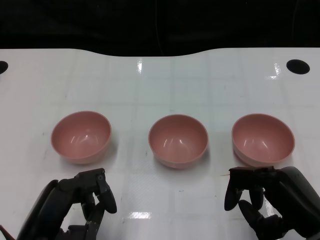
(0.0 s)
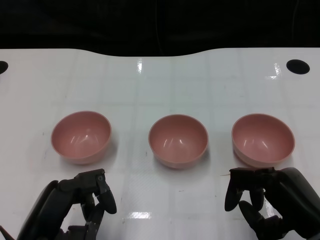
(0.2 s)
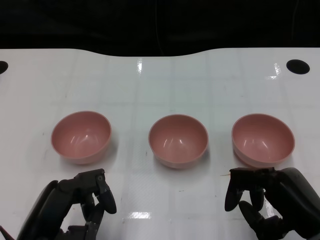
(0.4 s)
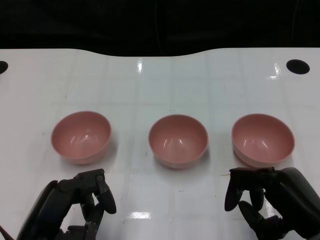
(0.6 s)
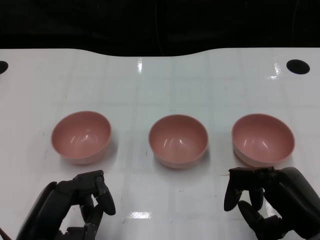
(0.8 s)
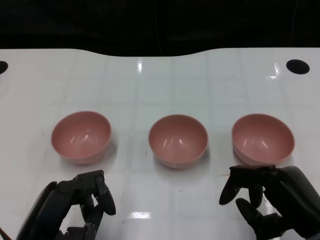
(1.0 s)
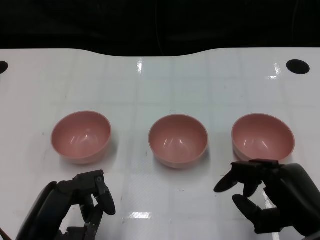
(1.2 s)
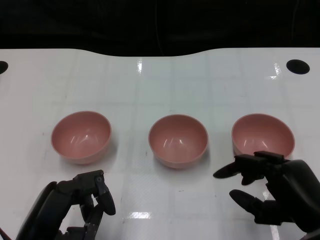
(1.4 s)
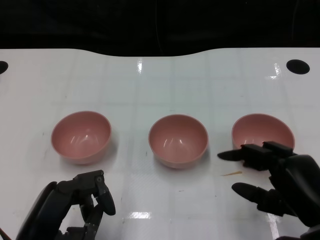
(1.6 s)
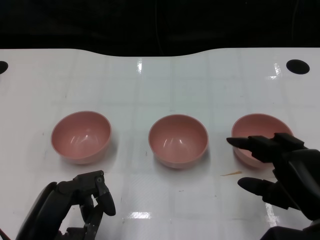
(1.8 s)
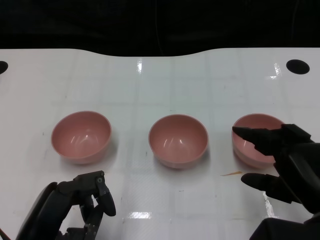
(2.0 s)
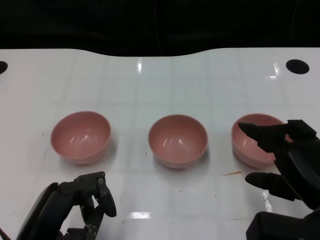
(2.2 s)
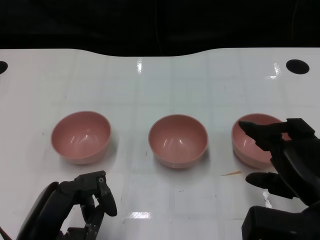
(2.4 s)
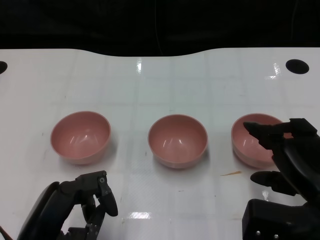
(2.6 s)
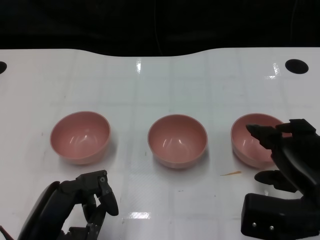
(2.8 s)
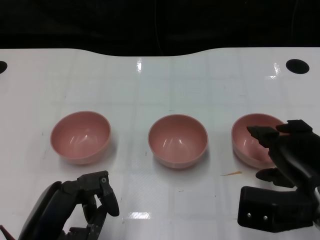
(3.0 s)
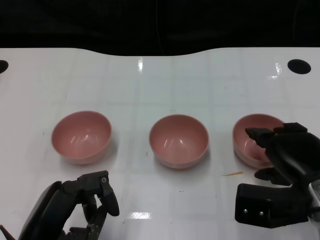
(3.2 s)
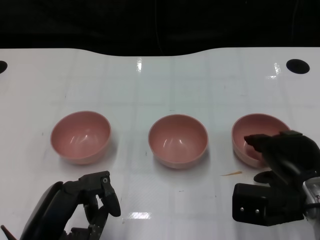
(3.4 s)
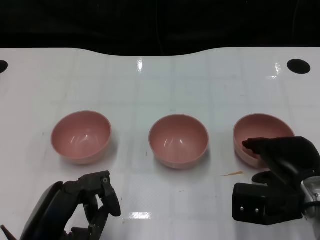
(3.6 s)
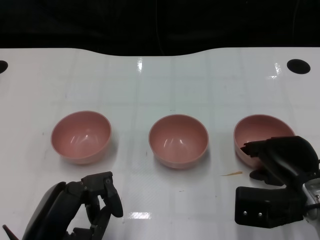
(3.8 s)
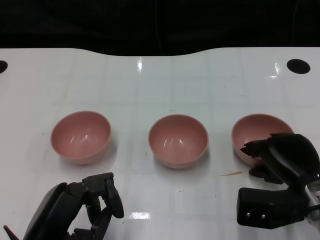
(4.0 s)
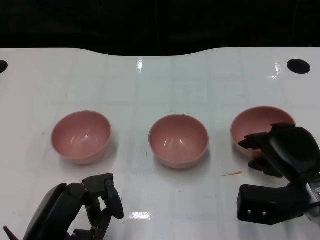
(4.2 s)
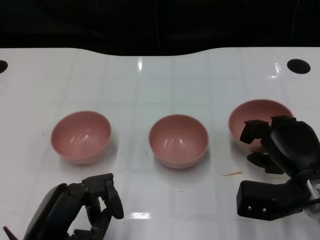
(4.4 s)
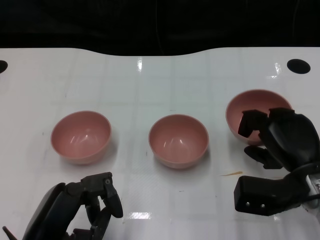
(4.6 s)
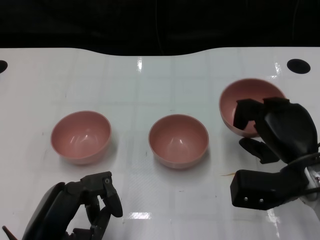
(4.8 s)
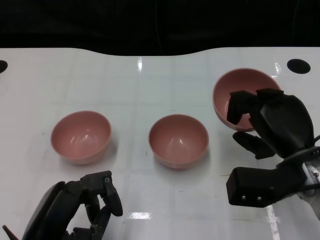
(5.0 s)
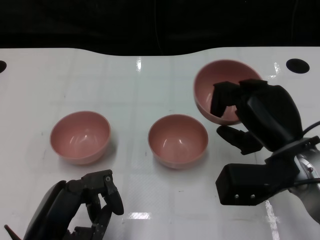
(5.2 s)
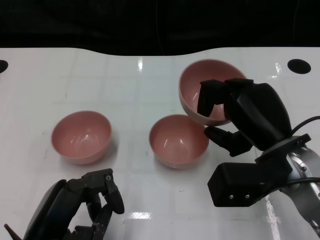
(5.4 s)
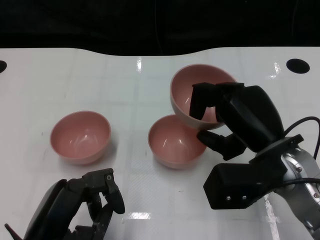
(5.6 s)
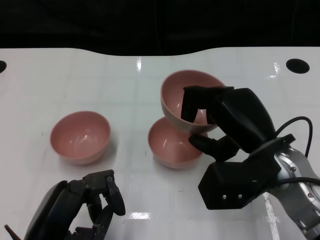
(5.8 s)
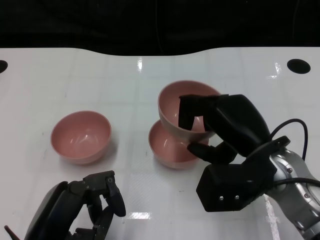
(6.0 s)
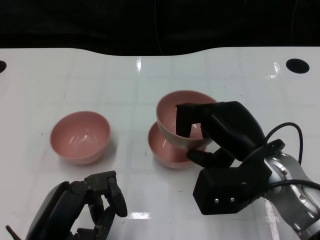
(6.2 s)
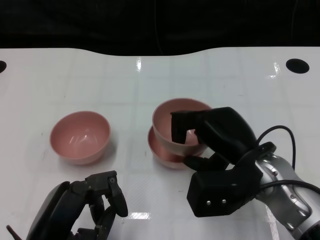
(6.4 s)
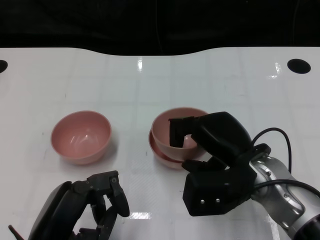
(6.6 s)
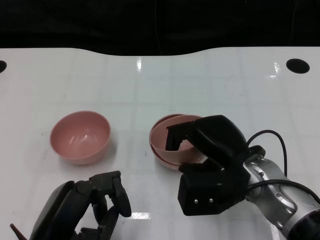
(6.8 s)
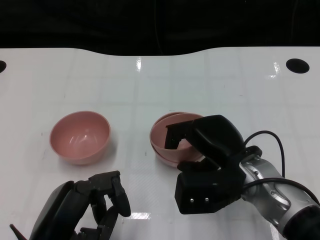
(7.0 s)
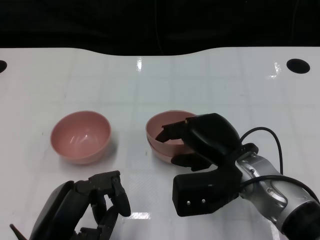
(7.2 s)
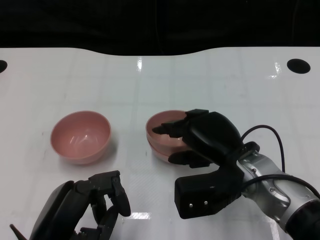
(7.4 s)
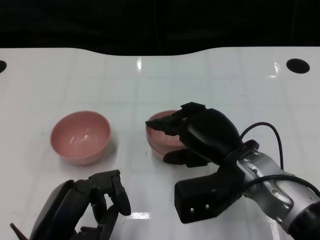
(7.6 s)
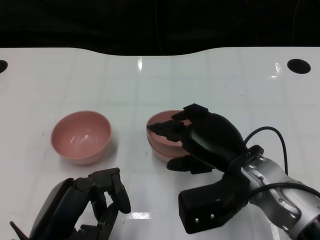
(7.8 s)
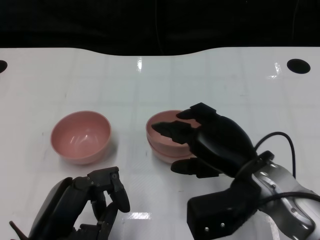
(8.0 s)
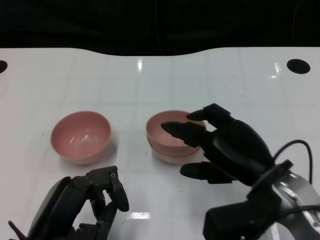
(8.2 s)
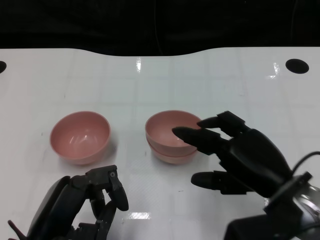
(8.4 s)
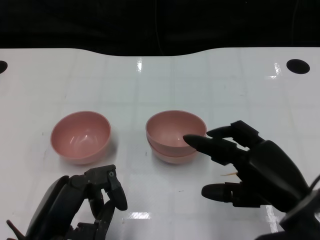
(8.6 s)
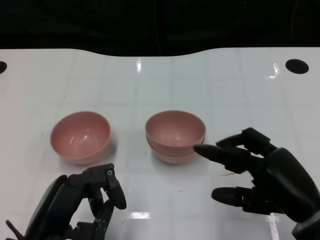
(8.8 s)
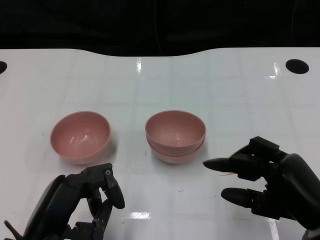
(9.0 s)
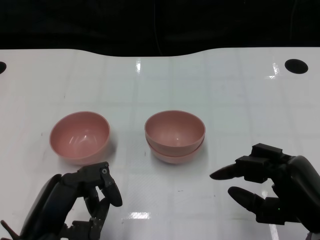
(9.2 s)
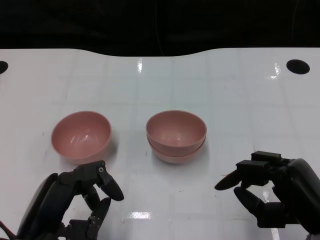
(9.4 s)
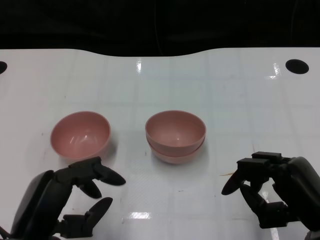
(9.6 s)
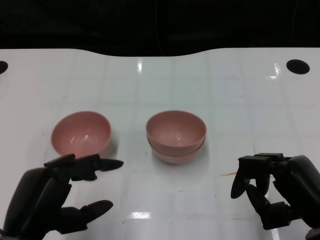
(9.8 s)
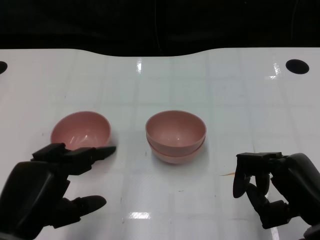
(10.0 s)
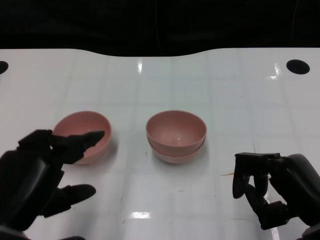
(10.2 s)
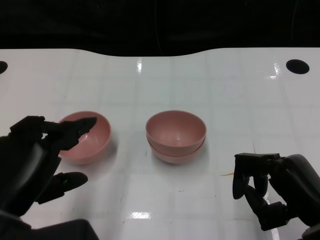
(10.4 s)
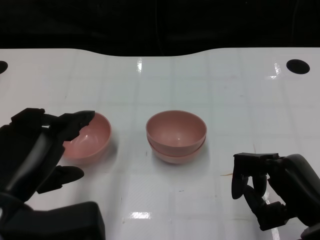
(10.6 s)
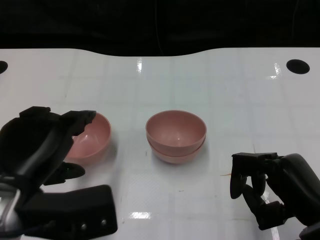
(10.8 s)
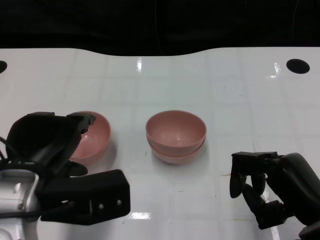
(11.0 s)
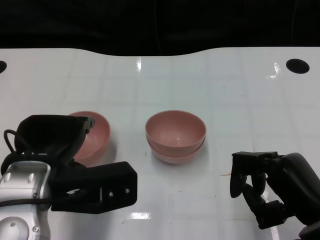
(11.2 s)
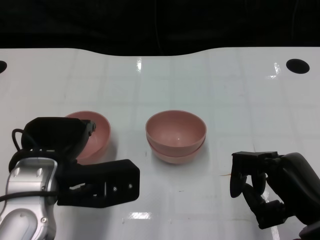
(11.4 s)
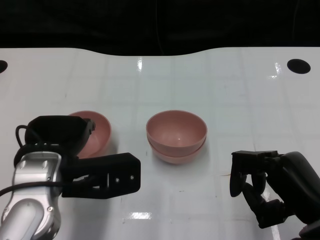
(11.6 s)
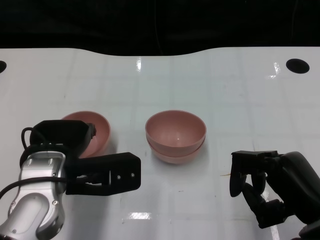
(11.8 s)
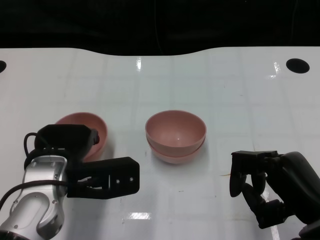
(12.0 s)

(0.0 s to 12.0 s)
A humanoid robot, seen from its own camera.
Task of the whole recording: Pick up the bowl on one side of the table and place it on top of the middle bowl, then pick up the bowl on the other side of the table and place it on top of the middle bowls.
Step, 1.0 s - 4.2 s: Grasp the bowl on the right with the right gripper.
Step, 4.4 s - 8.4 s: Place the bowl on the right onto the bowl in the middle with right gripper.
1.6 s - 3.0 s: The right hand heads forward, covering approximately 5 cm.
3.0 s - 4.4 s: There are only small adjustments of the hands.
4.4 s - 6.0 s: The right hand is displaced upward and to the left by approximately 10 cm.
6.0 s - 7.6 s: There are only small adjustments of the hands.
7.6 s - 9.0 s: The right hand travels to the right and backward by about 15 cm.
9.0 s - 10.4 s: The left hand heads upward, covering approximately 5 cm.
10.4 s - 12.0 s: The left hand shifts about 10 cm forward and to the right.

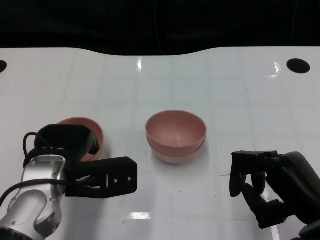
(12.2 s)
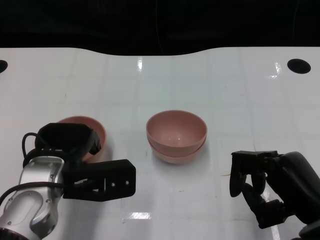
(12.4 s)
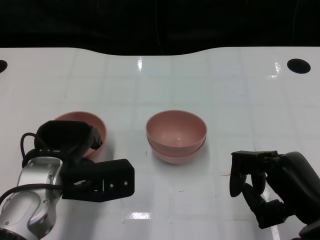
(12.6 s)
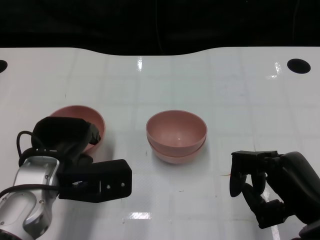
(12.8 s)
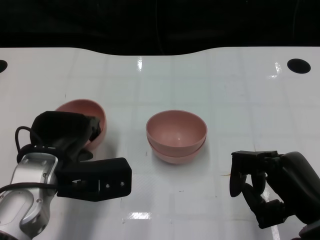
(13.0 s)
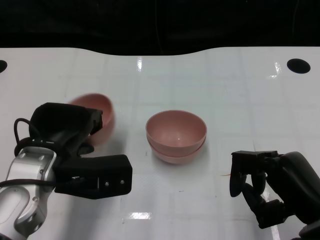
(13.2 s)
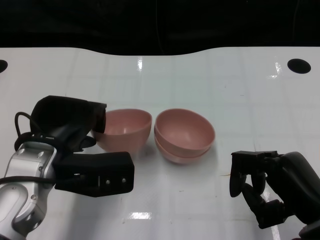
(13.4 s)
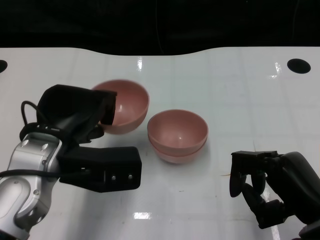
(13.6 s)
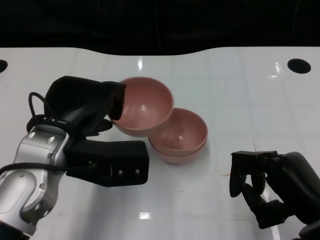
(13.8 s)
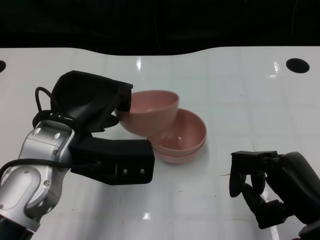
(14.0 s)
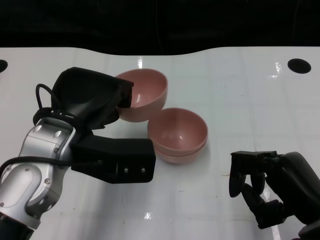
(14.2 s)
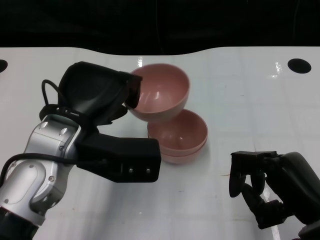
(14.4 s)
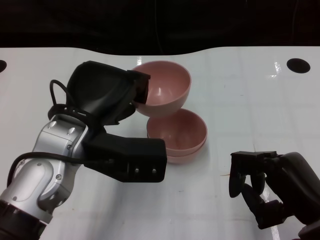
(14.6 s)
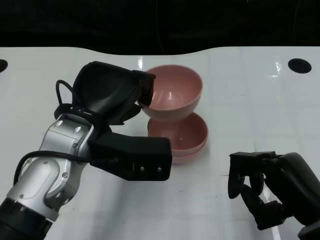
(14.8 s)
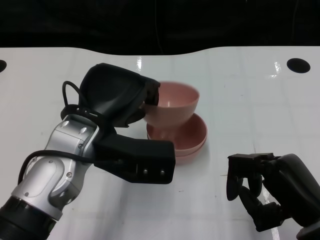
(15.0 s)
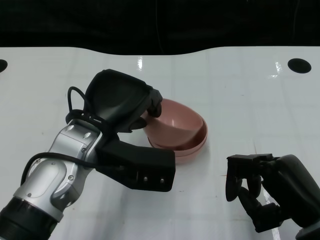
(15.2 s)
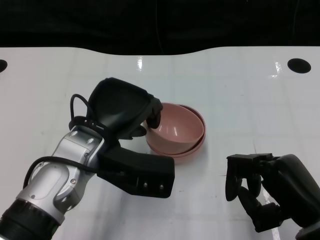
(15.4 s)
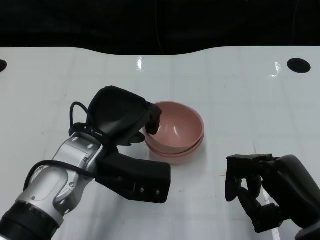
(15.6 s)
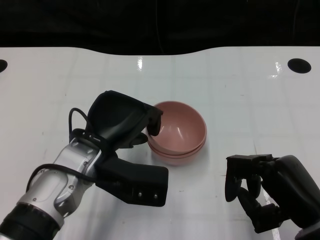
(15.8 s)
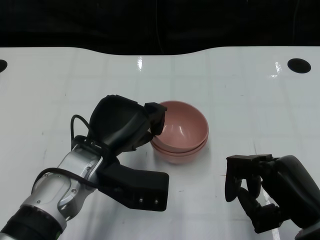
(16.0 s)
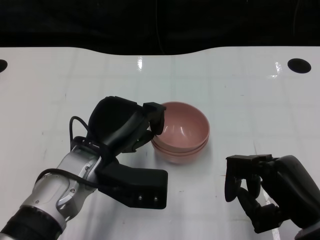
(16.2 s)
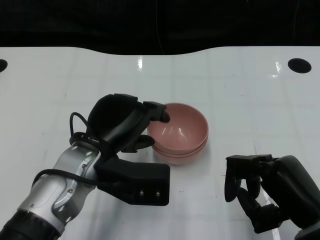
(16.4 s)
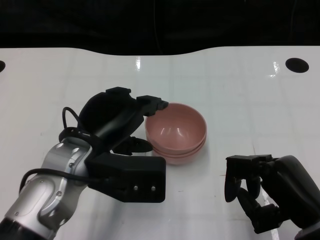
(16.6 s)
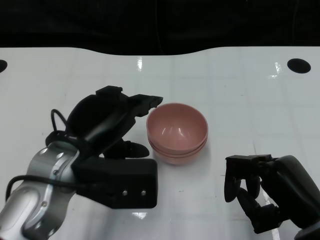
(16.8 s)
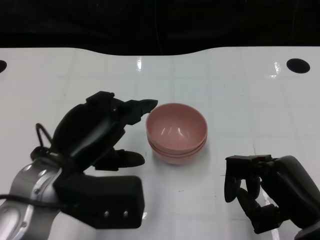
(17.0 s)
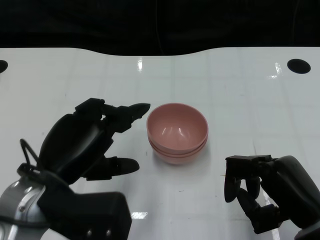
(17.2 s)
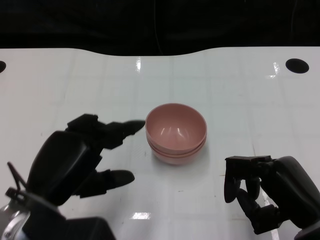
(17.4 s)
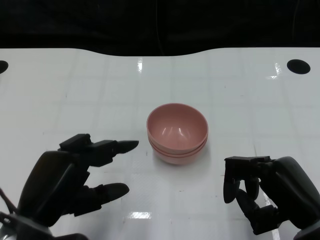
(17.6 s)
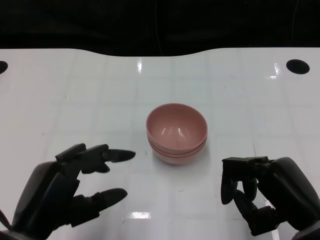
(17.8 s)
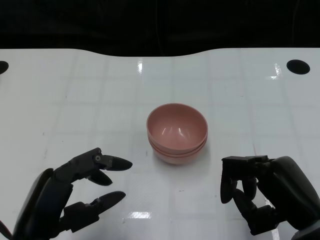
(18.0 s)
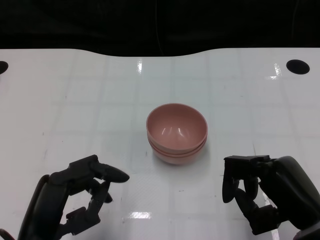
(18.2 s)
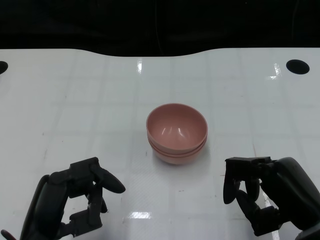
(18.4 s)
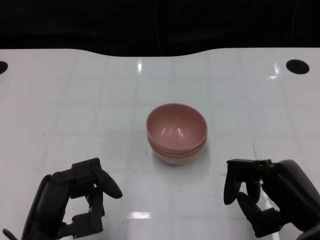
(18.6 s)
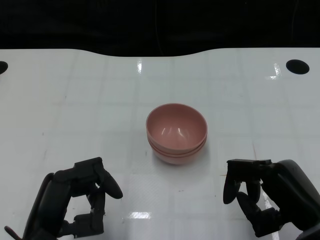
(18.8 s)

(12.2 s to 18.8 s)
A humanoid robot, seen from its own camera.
Task of the whole recording: Pick up the bowl on one side of the table and place it on top of the middle bowl, then pick up the bowl on the other side of the table and place it on top of the middle bowls.
Step, 12.8 s - 16.8 s: Place the bowl on the left onto the bowl in the middle with left gripper.
12.2 s - 13.8 s: The left hand goes approximately 5 cm upward.
15.4 s - 17.2 s: The left hand goes some 10 cm backward and to the left.
17.2 s - 18.8 s: The left hand shifts some 10 cm backward and downward.

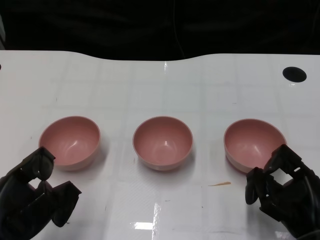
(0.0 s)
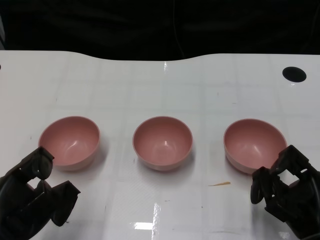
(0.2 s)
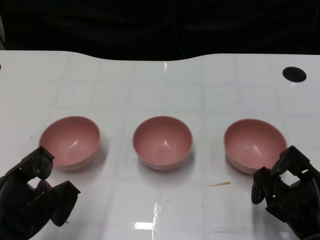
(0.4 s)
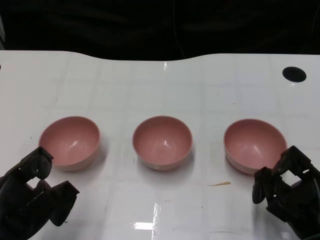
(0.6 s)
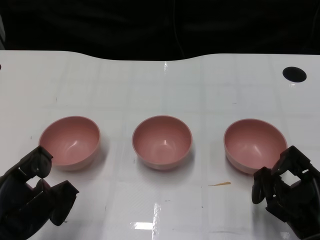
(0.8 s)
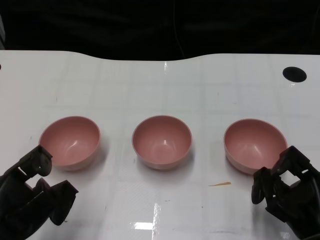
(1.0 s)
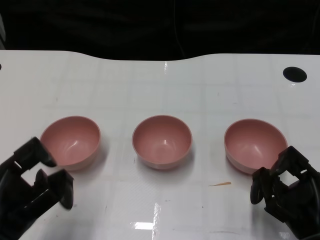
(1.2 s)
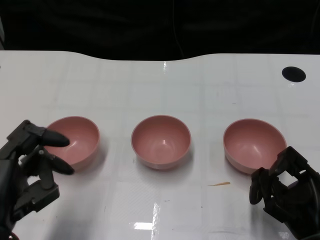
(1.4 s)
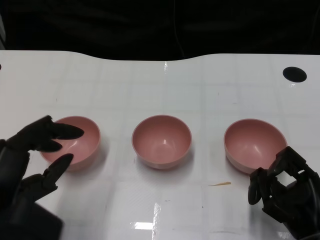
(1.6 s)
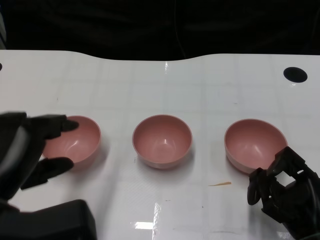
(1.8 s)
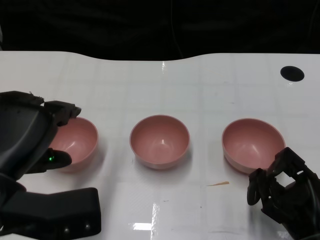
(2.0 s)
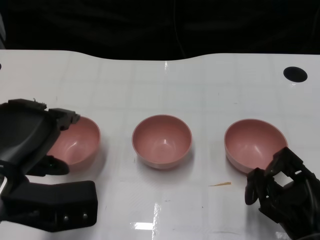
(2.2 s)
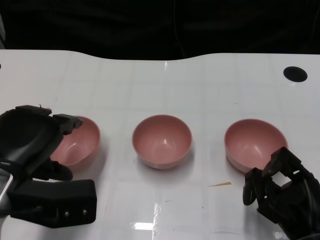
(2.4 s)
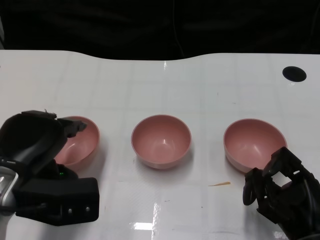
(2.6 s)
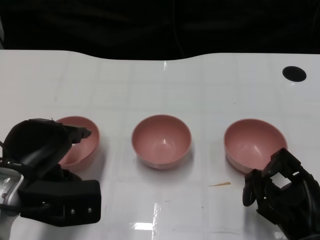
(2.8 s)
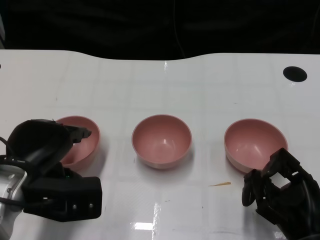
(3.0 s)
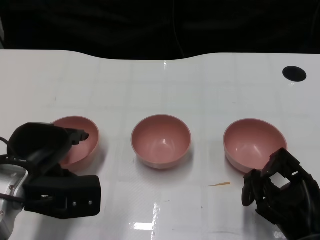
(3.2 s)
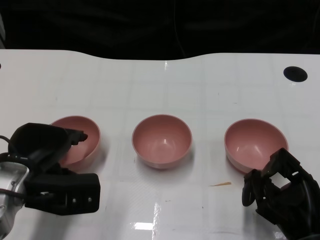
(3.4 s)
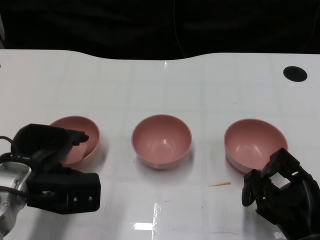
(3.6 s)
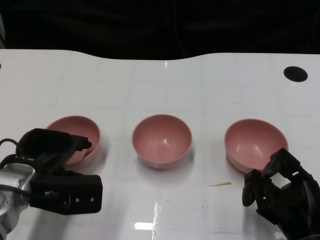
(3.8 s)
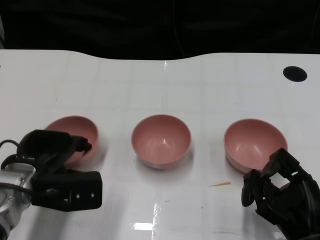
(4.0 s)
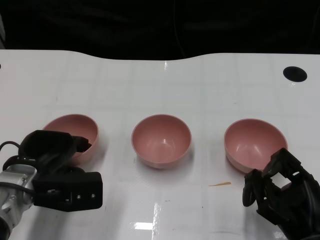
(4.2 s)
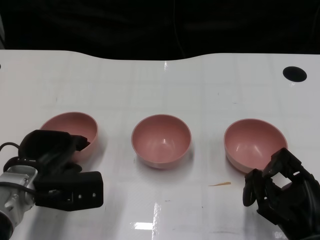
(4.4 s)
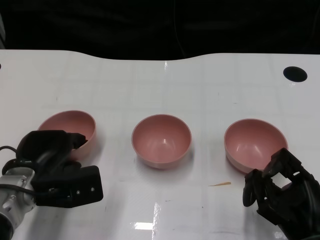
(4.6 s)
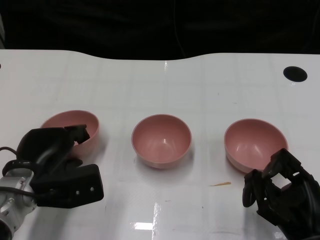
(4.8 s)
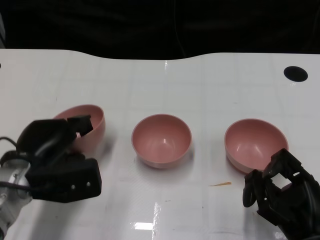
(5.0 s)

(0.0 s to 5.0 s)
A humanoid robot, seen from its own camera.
Task of the whole recording: Pick up the bowl on one side of the table and place it on top of the middle bowl, then pick up the bowl on the other side of the table and place it on top of the middle bowls.
Step, 1.2 s - 5.0 s: Grasp the bowl on the left with the left gripper.
1.6 s - 3.4 s: The left hand travels forward by about 10 cm.
3.4 s - 5.0 s: The hands stay close to where they were, moving slightly.
